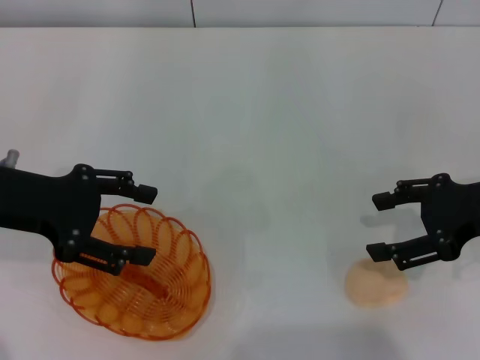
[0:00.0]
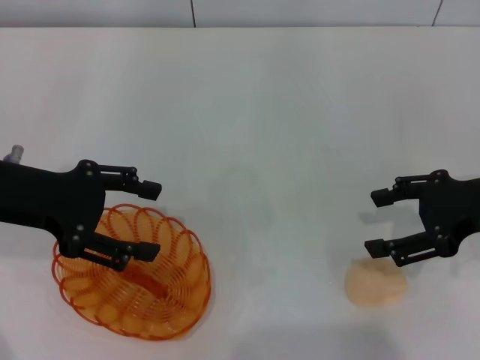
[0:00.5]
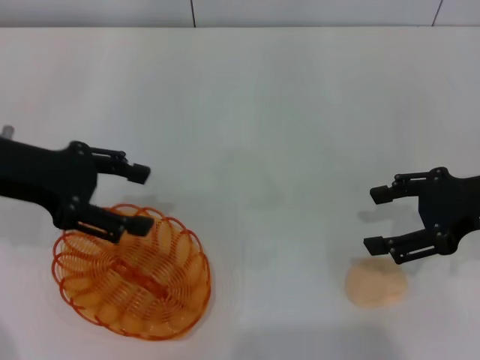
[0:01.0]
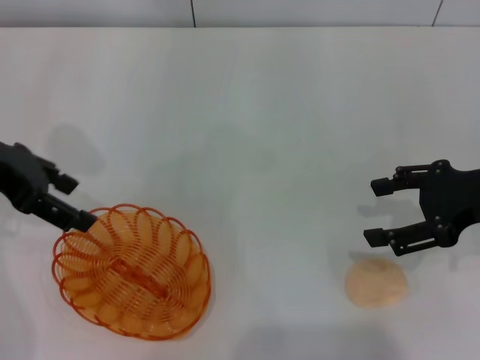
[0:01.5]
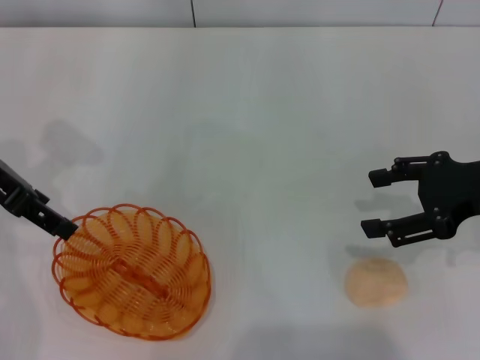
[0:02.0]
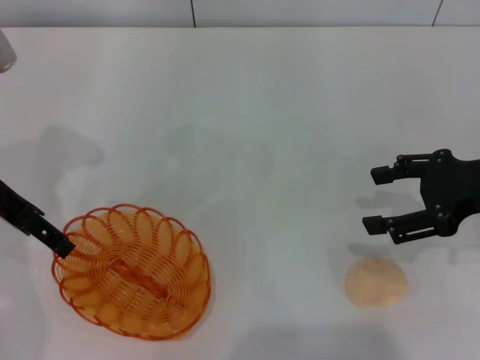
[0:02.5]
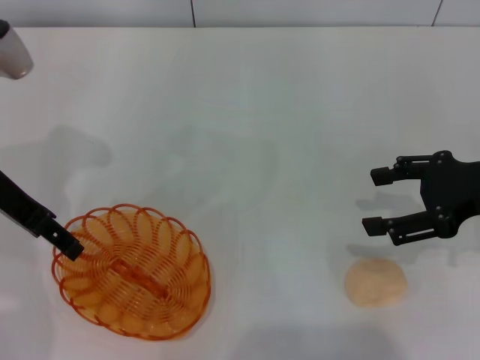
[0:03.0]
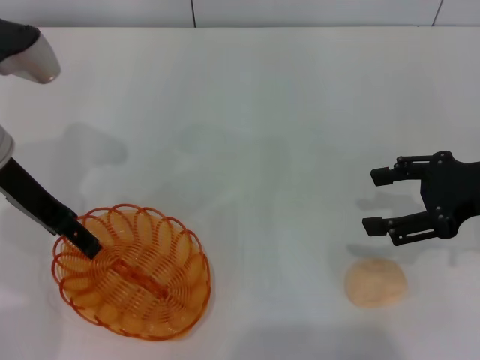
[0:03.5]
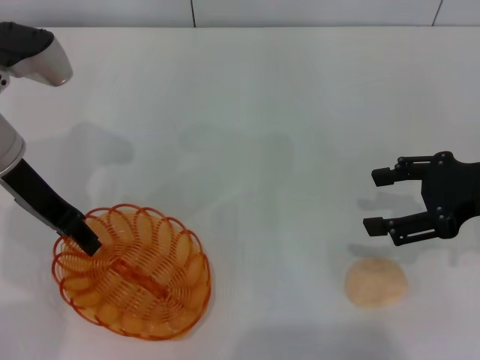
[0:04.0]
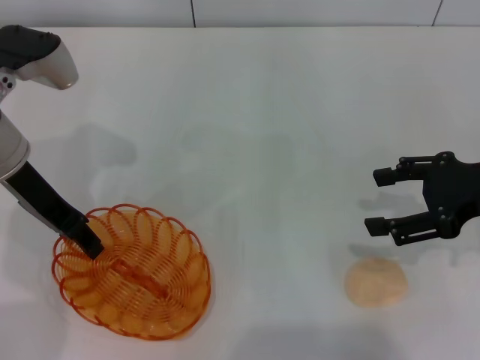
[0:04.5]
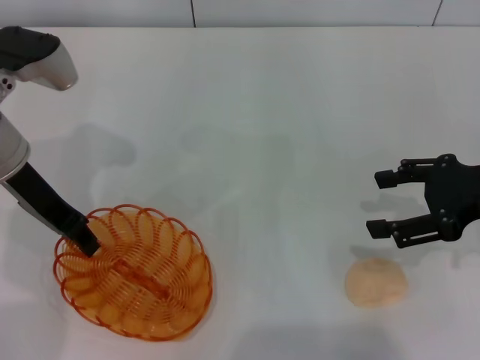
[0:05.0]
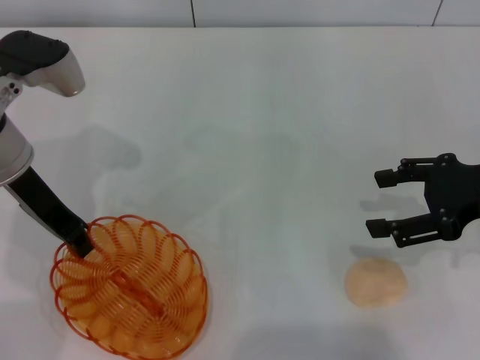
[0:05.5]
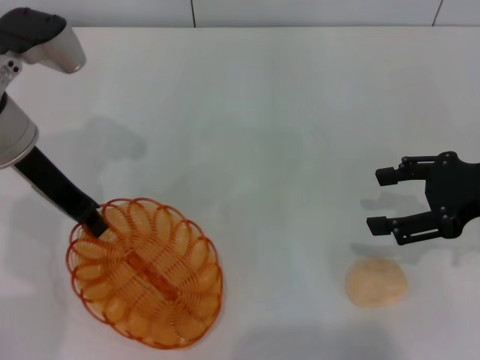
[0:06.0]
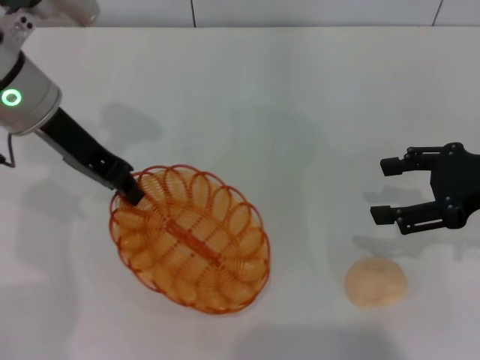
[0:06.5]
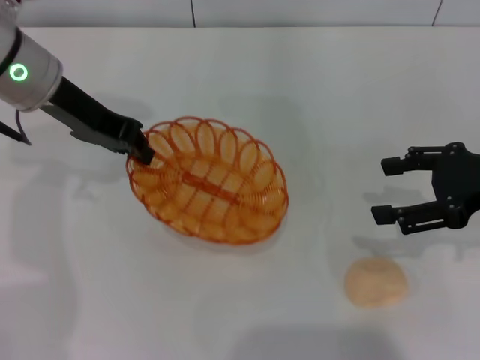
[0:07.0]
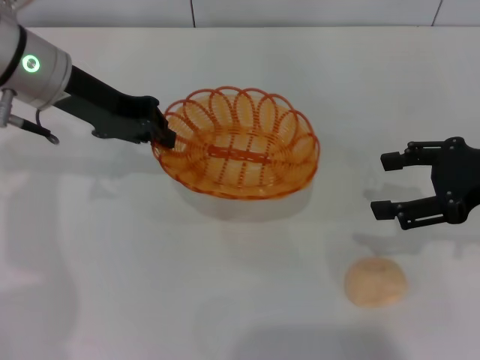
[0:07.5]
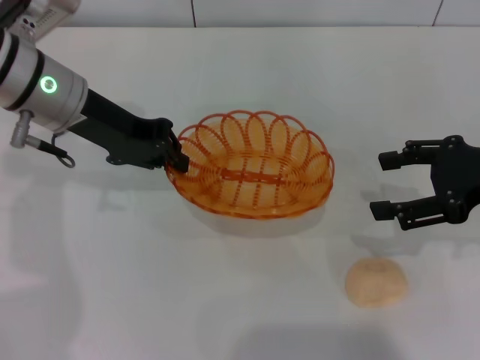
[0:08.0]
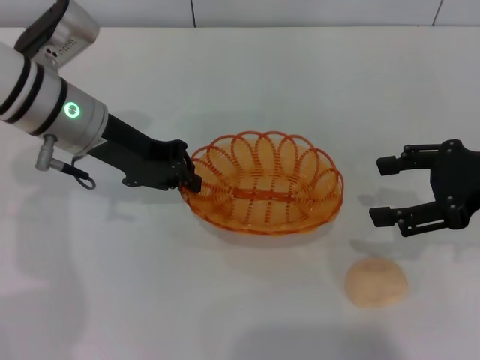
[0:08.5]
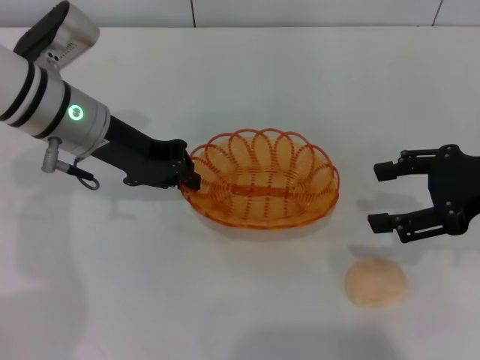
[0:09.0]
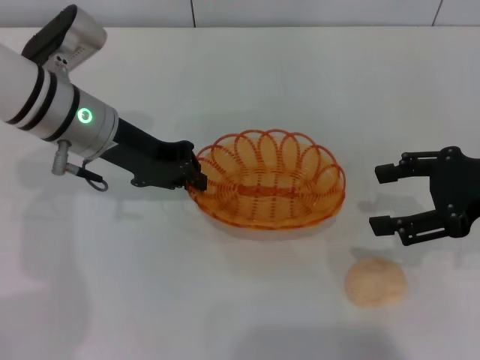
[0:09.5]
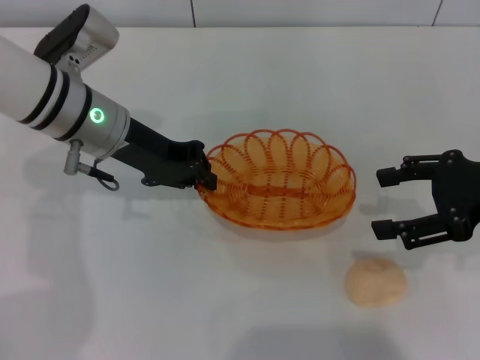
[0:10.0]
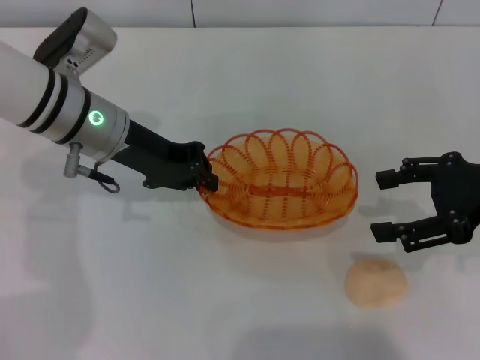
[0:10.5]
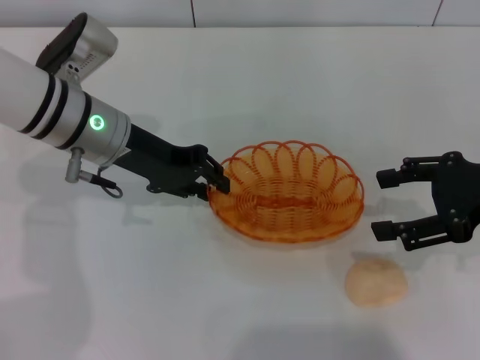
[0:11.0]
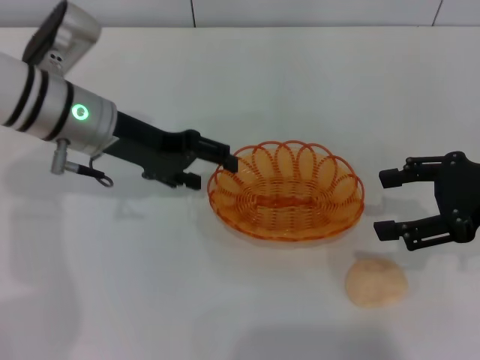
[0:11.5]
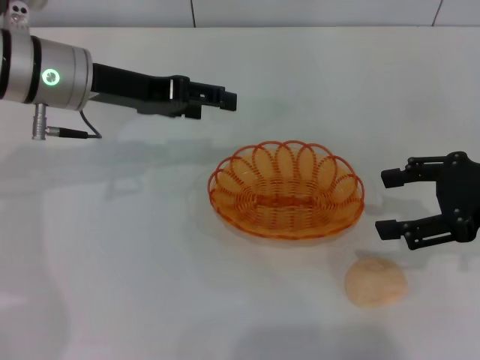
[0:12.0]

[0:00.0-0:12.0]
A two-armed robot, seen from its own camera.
Step, 0:00.0 to 0:06.0: Pick up the basket with the left gripper.
Step, 0:06.5 to 0:11.5: Place the basket in the center of view with the left gripper.
0:00.0 to 0:02.0: The left gripper moves about 5 cm.
0:02.0 to 0:04.0: The left gripper moves about 5 cm.
0:04.0 to 0:06.0: The left gripper closes.
0:08.0 to 0:10.0: The grippers make only small movements.
0:10.0 to 0:12.0: The left gripper opens up.

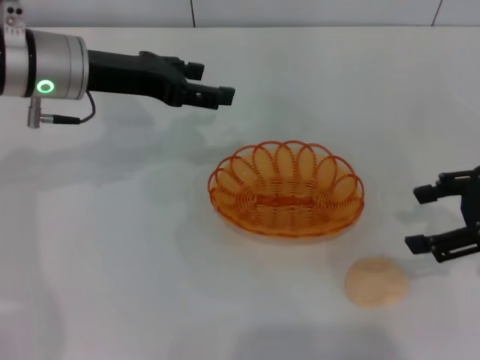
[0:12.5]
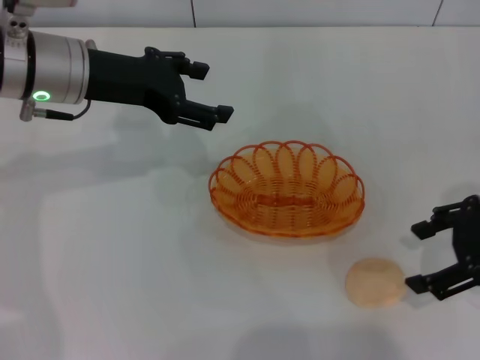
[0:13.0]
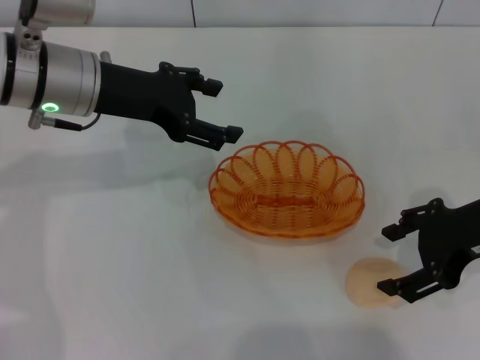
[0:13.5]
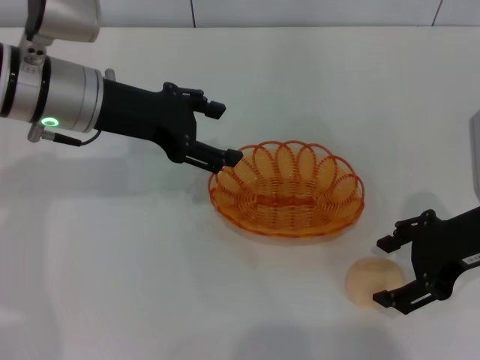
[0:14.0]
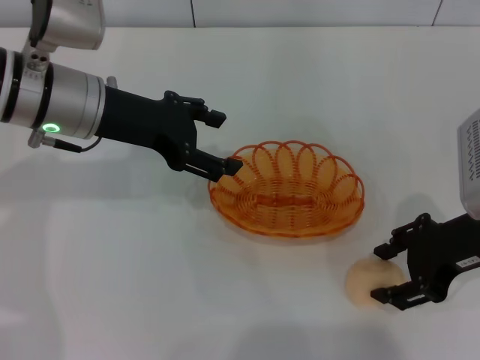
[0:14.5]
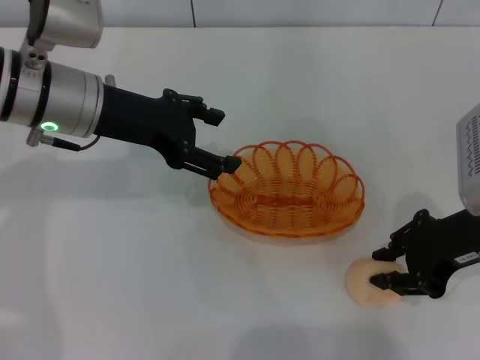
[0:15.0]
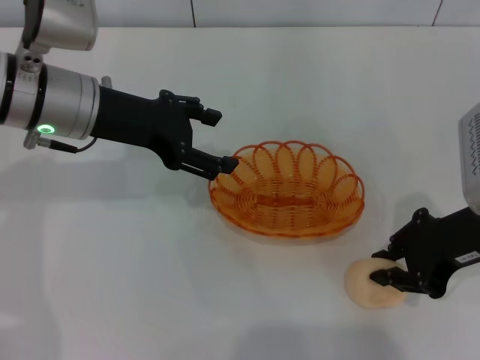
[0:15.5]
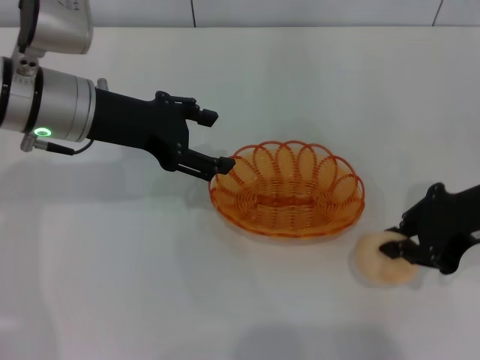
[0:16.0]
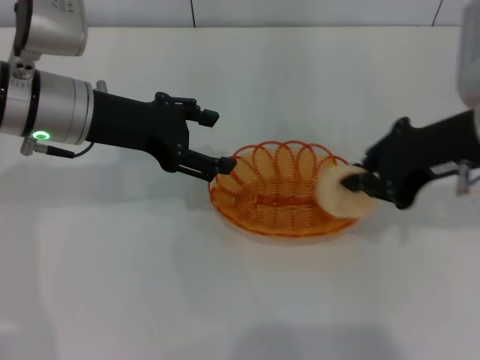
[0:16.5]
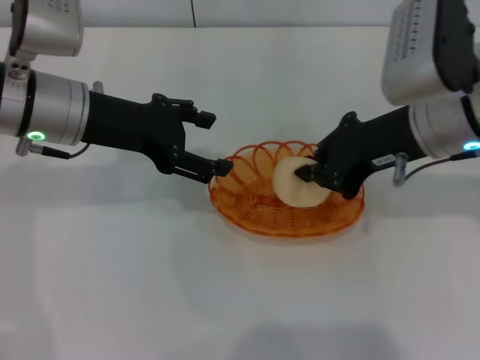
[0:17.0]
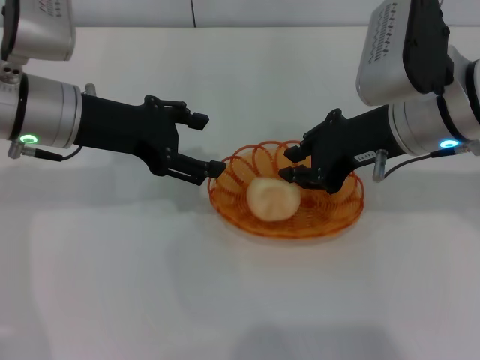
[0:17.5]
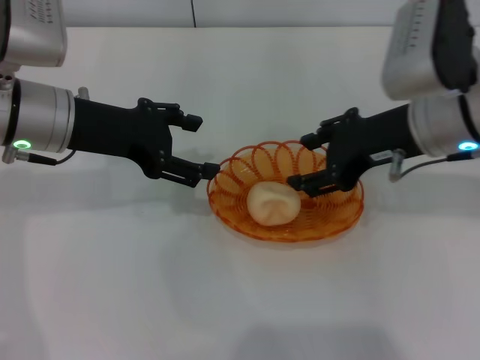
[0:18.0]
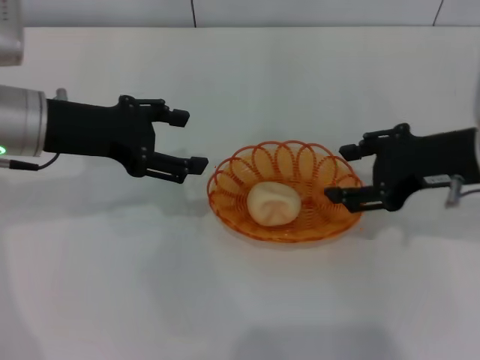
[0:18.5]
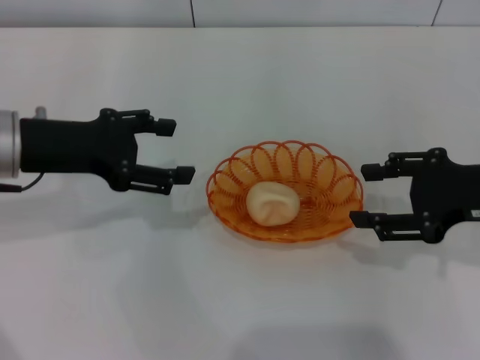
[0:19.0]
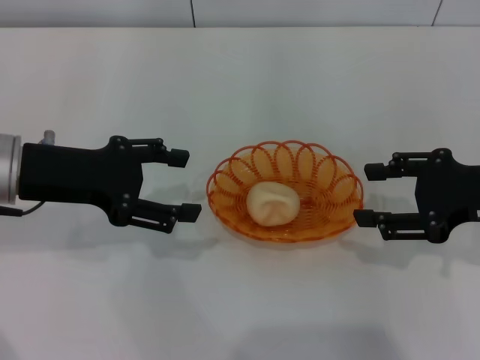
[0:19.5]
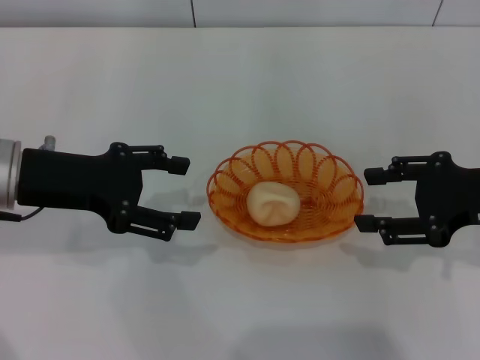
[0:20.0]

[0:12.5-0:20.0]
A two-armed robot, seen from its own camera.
Step, 0:12.5 to 0:16.0: Pick up the egg yolk pastry with the right gripper.
Step, 0:16.5 to 0:18.0: Place the egg yolk pastry into the basket with the right gripper.
0:12.5 to 0:14.5: The right gripper is displaced to the left by approximately 5 cm.
0:14.5 to 0:16.5: The right gripper shifts about 5 cm upward, and closes up.
0:16.5 to 0:18.0: The right gripper opens up.
0:18.0 to 0:20.0: The right gripper moves to the right and backward, approximately 10 cm. The left gripper heads backward, covering some 5 cm.

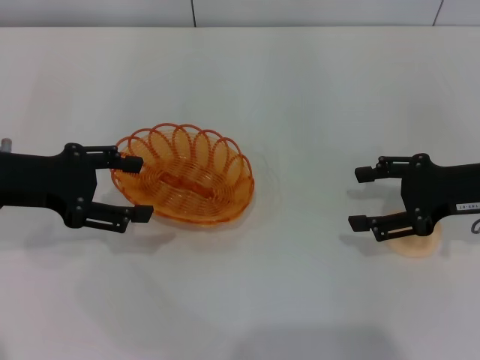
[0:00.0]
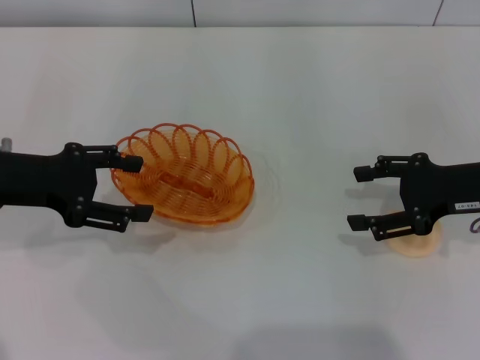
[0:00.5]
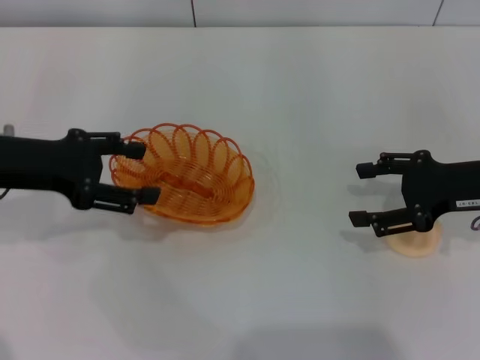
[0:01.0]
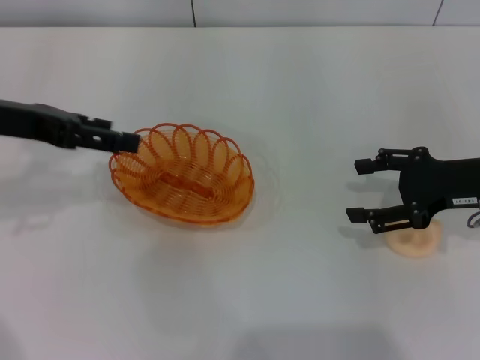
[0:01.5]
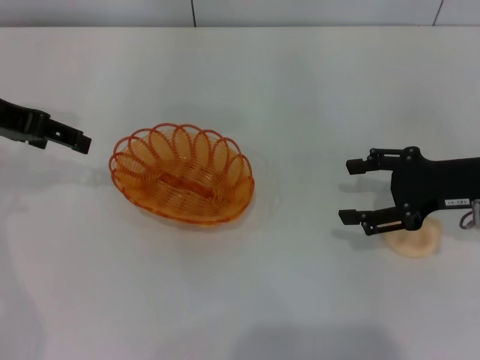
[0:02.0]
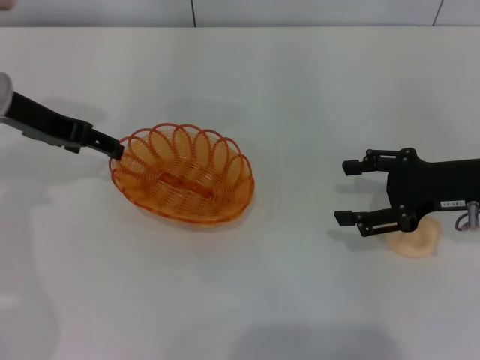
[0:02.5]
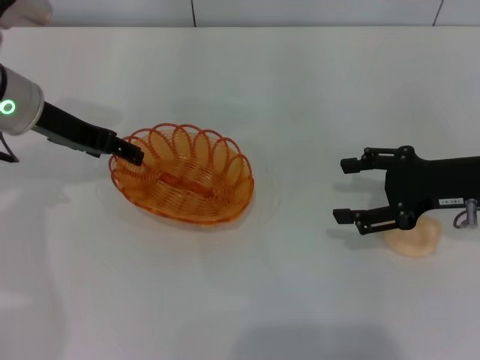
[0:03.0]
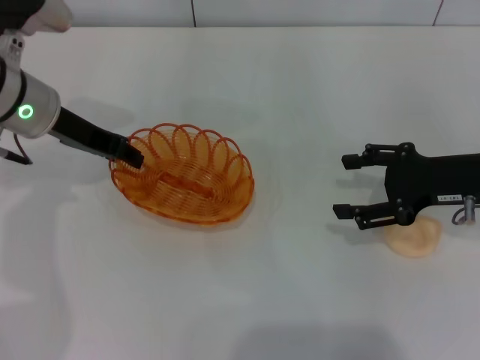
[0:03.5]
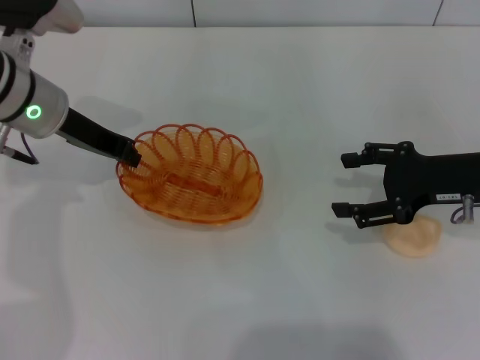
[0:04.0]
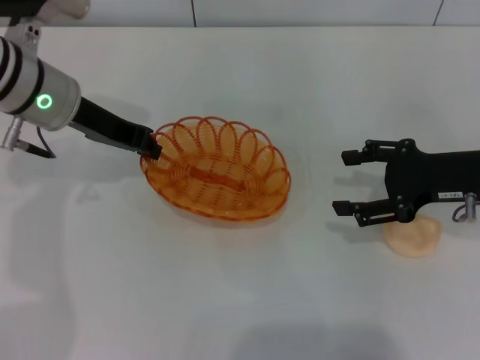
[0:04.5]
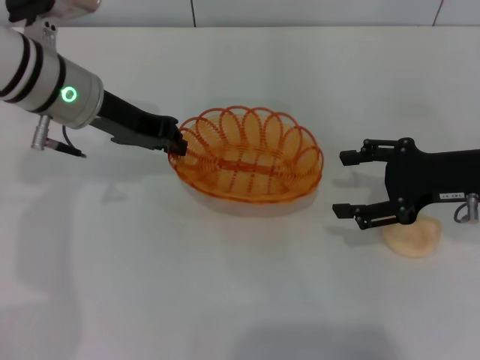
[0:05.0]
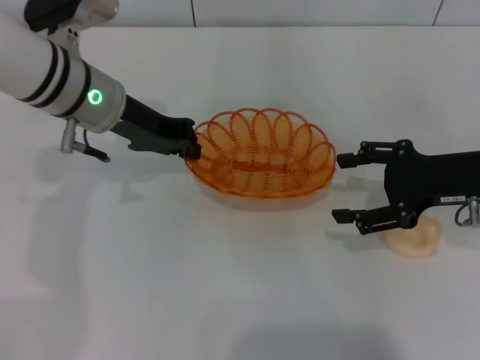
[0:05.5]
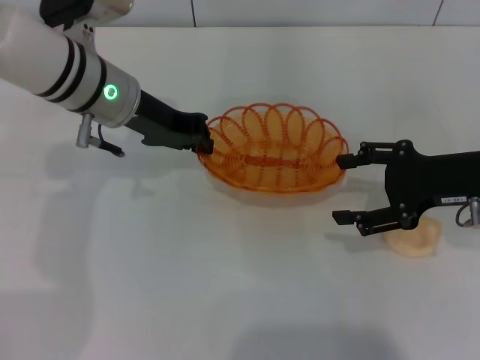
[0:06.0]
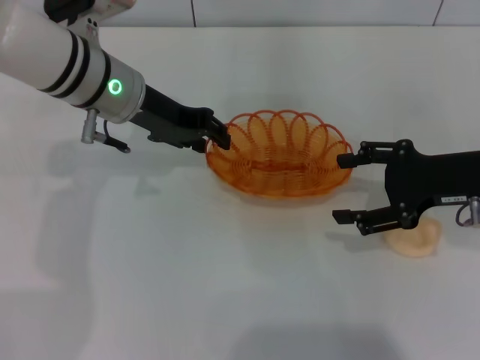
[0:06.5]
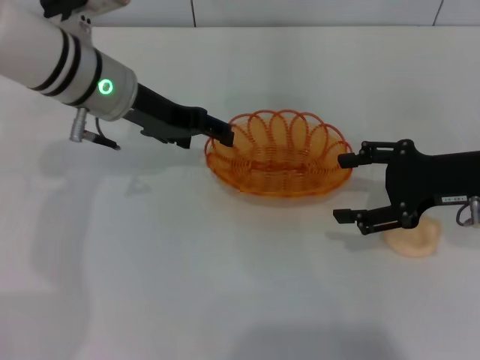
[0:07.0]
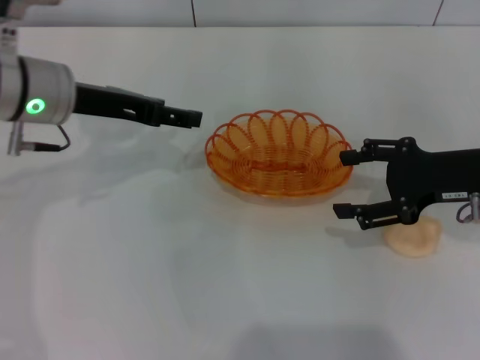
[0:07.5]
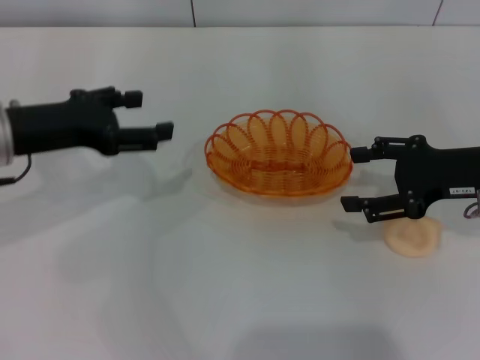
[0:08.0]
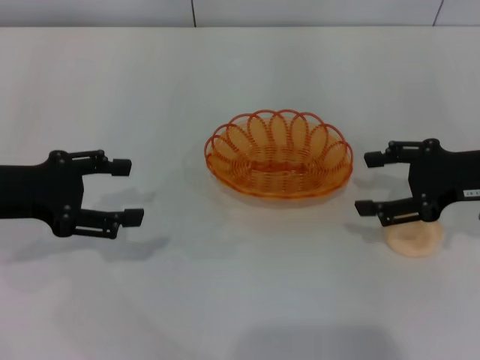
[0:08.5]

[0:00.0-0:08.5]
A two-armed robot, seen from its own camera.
Step, 0:00.0 to 0:05.0: Pick up the basket with the left gripper.
Step, 0:05.5 to 0:07.0: Place the basket in the center of view with the left gripper.
0:00.0 to 0:02.0: The left gripper goes approximately 10 cm upward and forward.
0:02.0 to 0:04.0: The left gripper is displaced to the right and downward by some 10 cm, and closes.
0:04.0 to 0:06.5: The left gripper is displaced to the right by roughly 5 cm.
0:06.5 to 0:08.5: The left gripper heads to the left and backward, covering about 20 cm, and opens.
